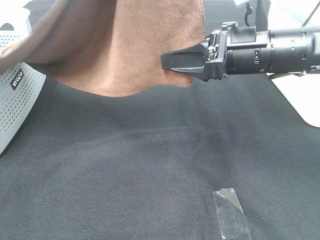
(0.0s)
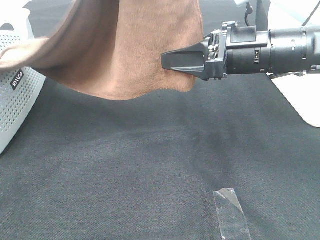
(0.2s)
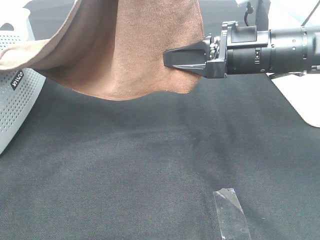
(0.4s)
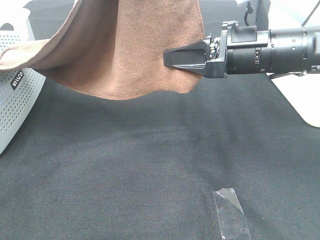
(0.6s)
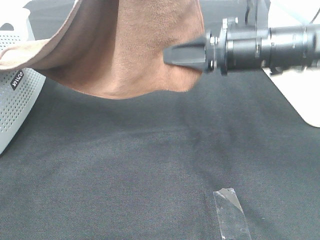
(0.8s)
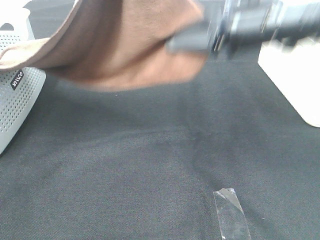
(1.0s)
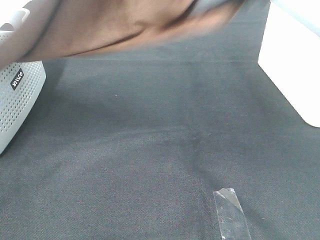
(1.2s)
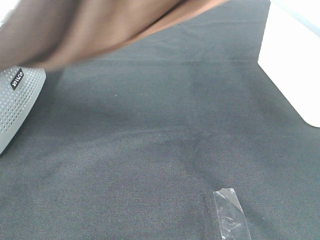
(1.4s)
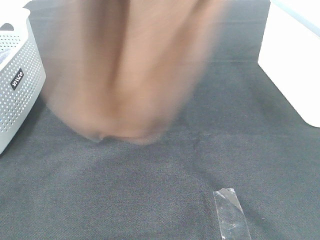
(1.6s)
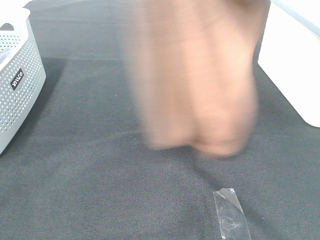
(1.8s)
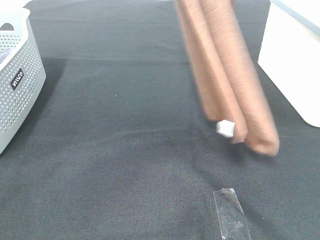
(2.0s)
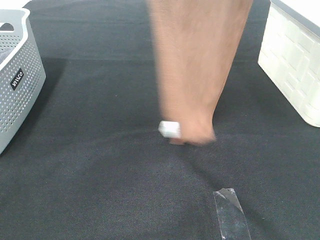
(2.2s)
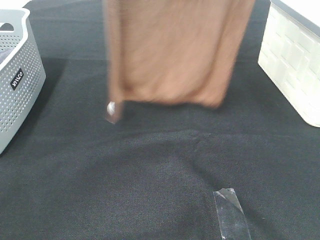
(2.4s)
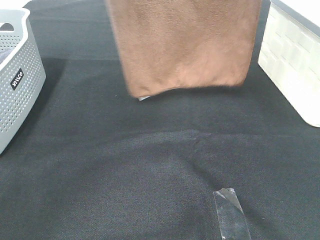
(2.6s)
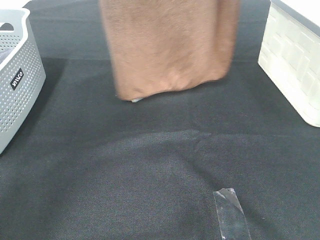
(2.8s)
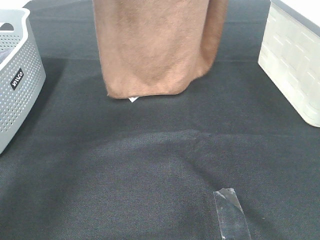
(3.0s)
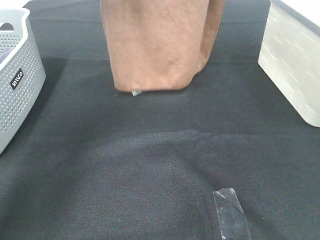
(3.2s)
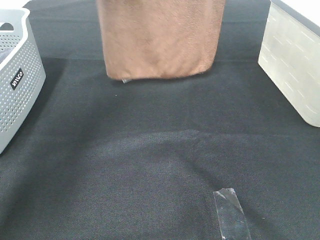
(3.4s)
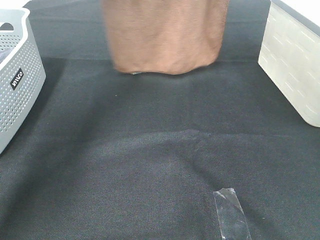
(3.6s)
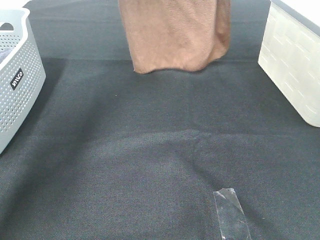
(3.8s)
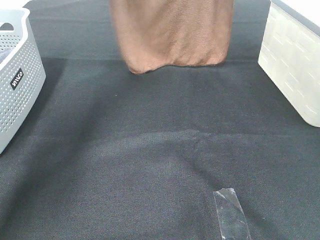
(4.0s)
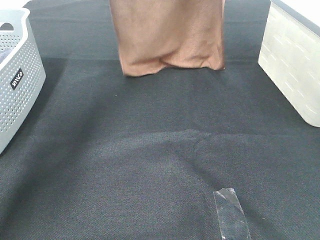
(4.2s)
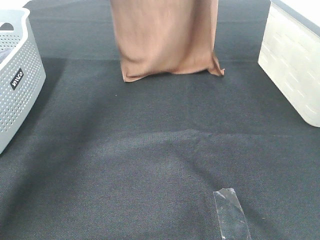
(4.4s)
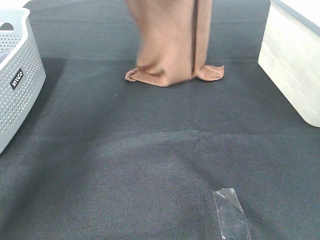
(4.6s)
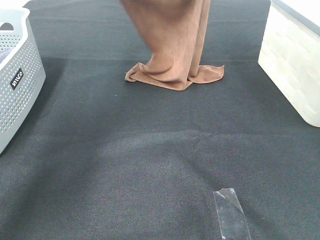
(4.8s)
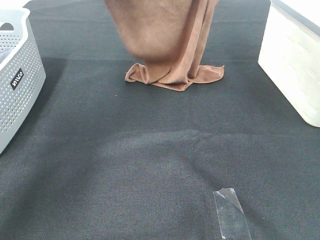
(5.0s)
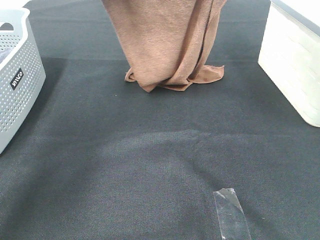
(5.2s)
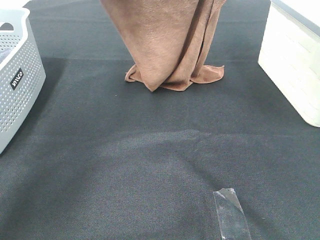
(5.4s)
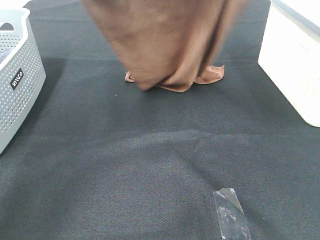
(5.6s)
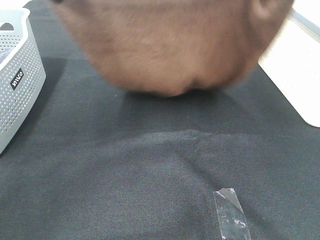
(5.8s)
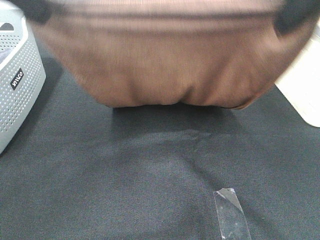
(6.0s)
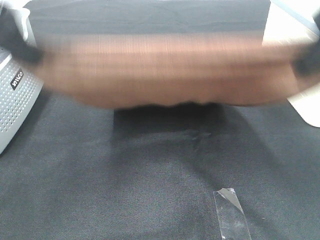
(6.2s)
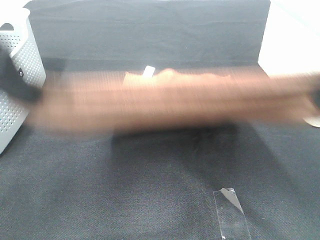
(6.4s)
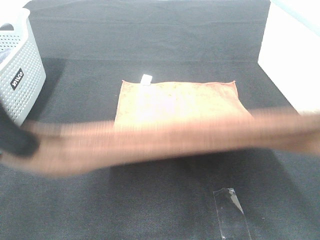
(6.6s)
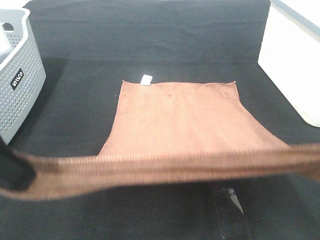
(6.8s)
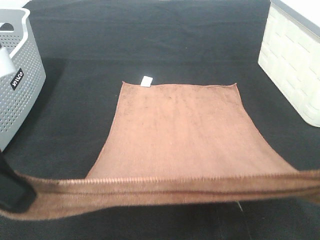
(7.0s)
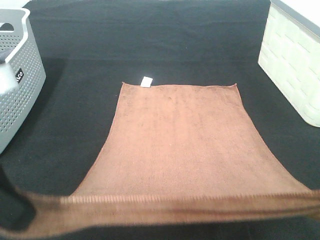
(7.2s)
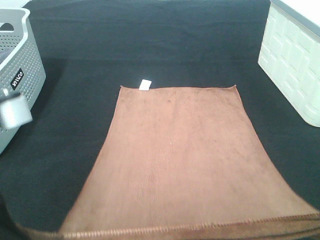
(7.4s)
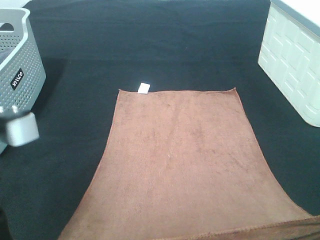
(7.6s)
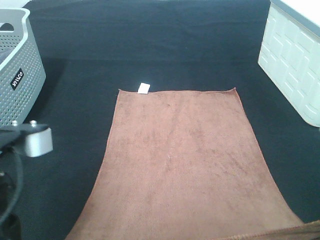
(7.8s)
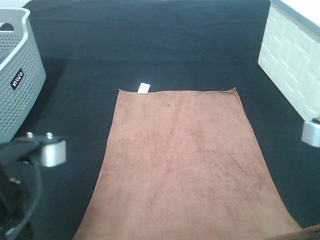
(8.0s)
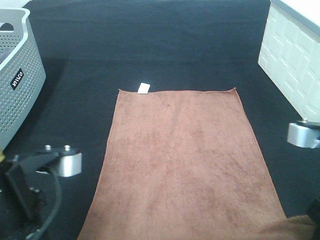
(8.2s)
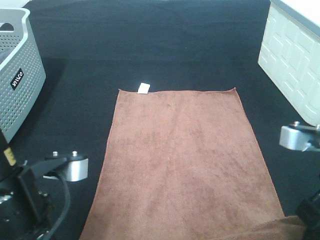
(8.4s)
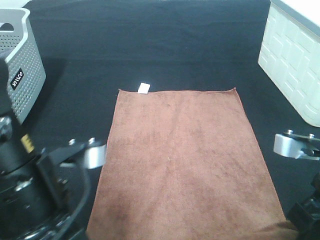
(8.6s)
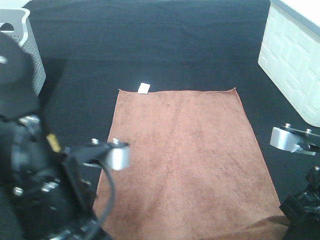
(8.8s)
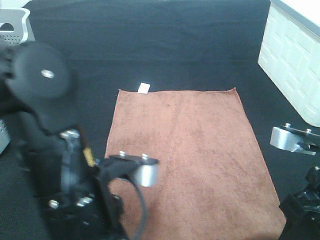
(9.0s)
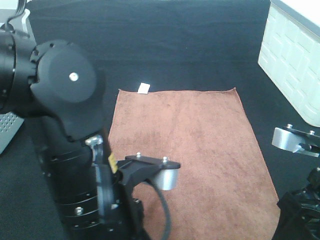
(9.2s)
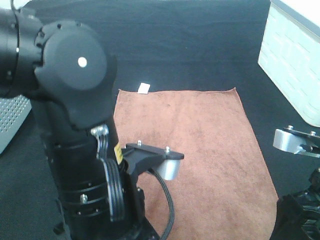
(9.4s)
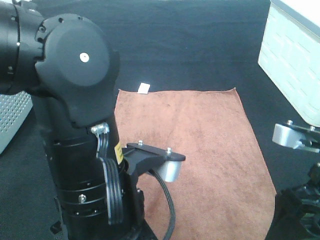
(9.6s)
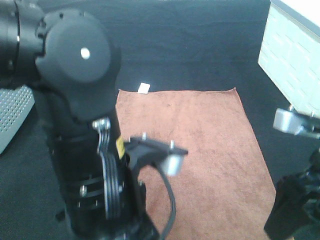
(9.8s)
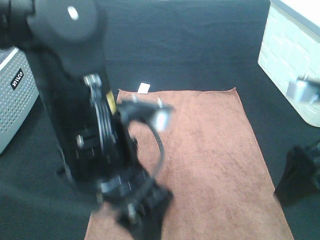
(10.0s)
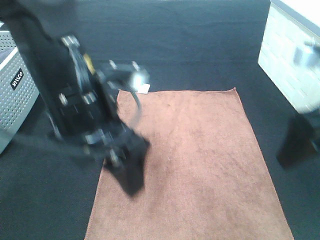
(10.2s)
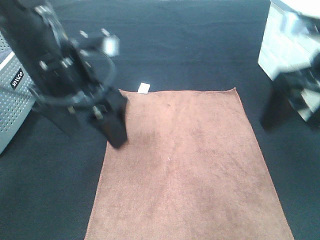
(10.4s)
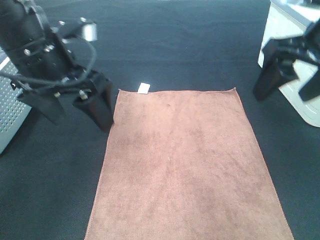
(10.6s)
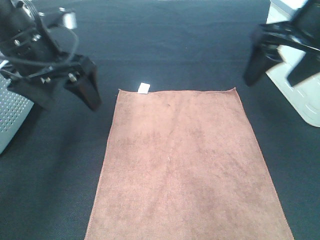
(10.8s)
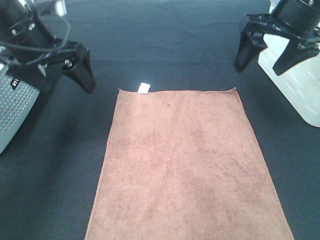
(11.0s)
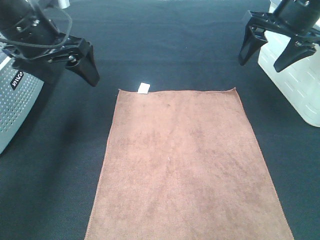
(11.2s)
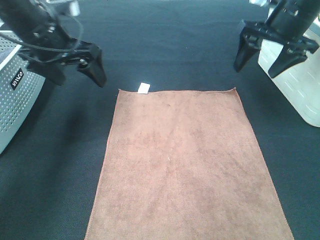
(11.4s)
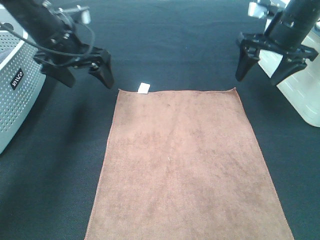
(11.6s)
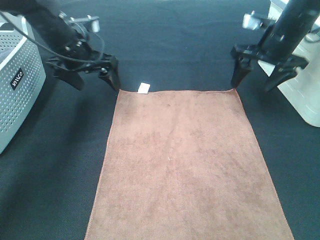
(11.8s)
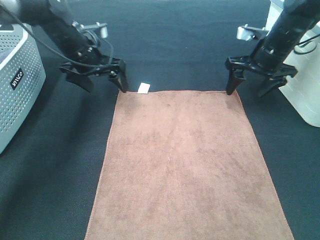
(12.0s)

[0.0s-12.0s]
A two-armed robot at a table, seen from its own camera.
Task of the whole recording: Remove the towel and place it.
Step, 0.4s to 5.0s: Right hand: spread the brown towel flat on the table.
Step, 0.4s to 5.2s: Left hand: spread the brown towel flat on the table.
0.0s to 1.6s: The right gripper goes some 30 cm upward, and closes up.
1.6s to 3.0s: The grippers both shift forward by about 15 cm.
3.0s to 4.4s: The right gripper ends up approximately 5 cm from where it was; the left gripper goes roughly 10 cm forward and downward.
4.4s to 6.0s: Both grippers move backward, roughly 25 cm.
6.0s to 7.6s: Both grippers travel together backward and downward, approximately 20 cm.
7.6s to 9.0s: The left gripper shifts approximately 10 cm to the right and downward, while the right gripper heads downward and forward, covering approximately 10 cm, and opens up.
9.0s to 10.4s: The left gripper goes roughly 15 cm forward, upward and to the left, and opens its fingers, while the right gripper goes about 15 cm forward and upward, and opens its fingers.
10.4s to 12.0s: Both grippers travel together forward and downward, approximately 25 cm.

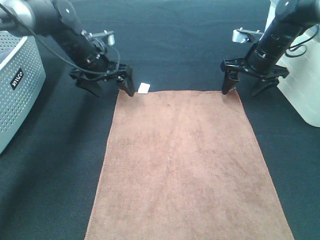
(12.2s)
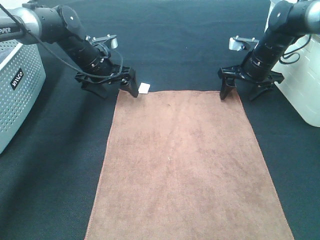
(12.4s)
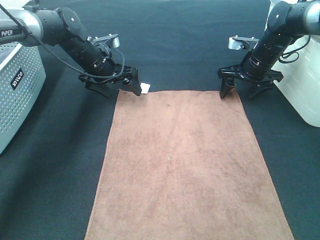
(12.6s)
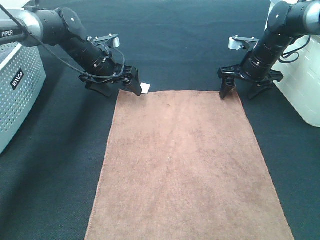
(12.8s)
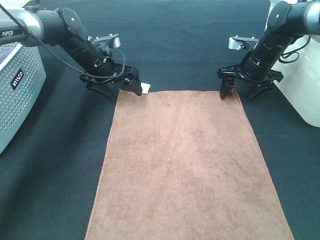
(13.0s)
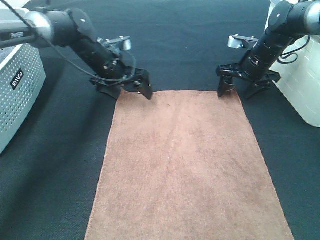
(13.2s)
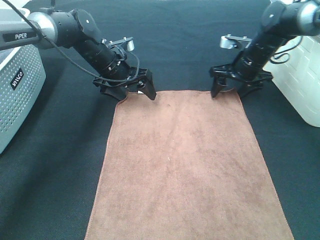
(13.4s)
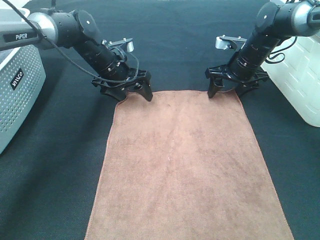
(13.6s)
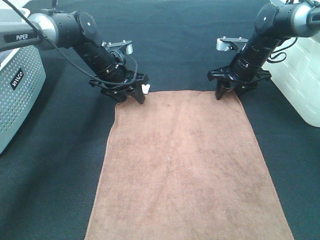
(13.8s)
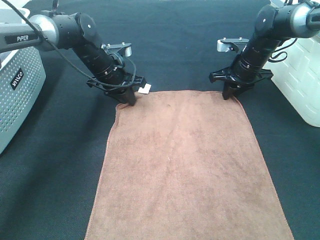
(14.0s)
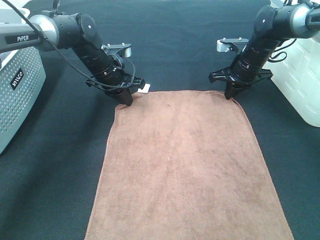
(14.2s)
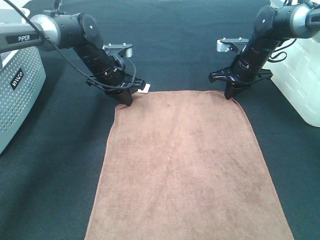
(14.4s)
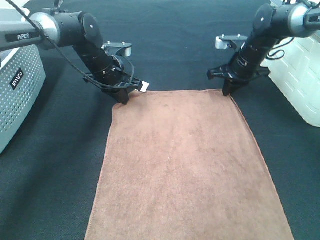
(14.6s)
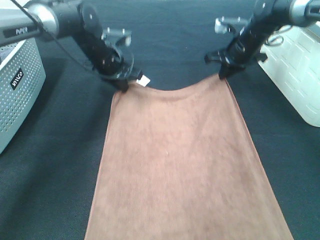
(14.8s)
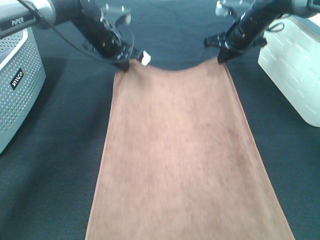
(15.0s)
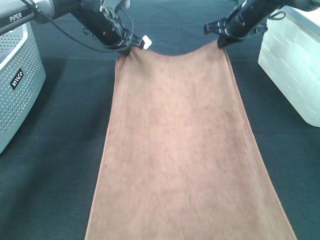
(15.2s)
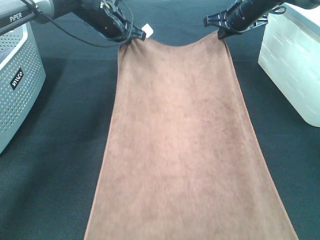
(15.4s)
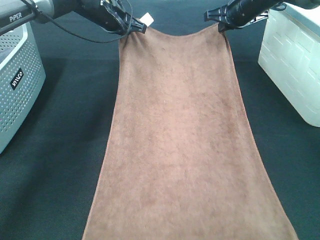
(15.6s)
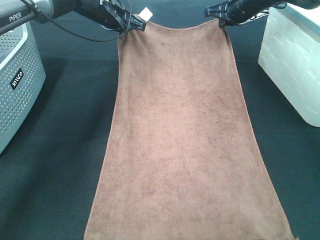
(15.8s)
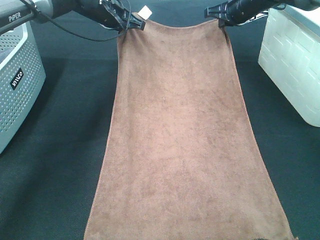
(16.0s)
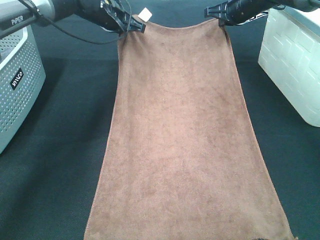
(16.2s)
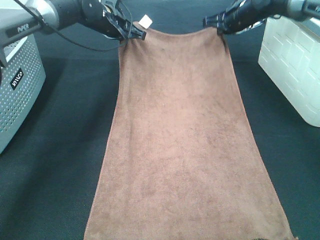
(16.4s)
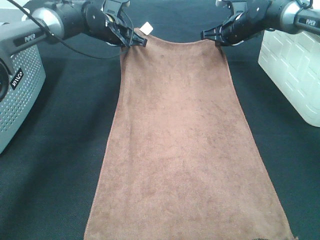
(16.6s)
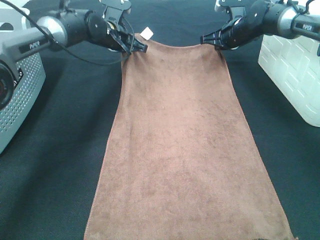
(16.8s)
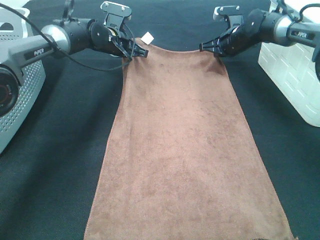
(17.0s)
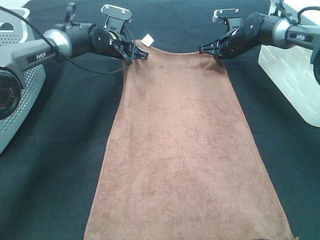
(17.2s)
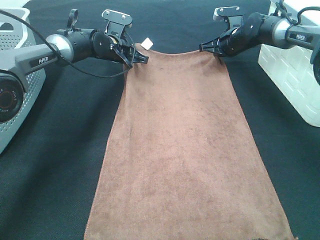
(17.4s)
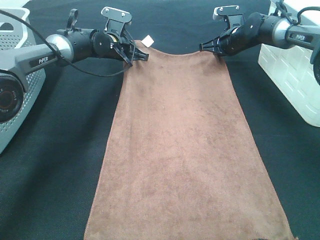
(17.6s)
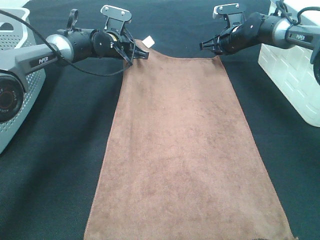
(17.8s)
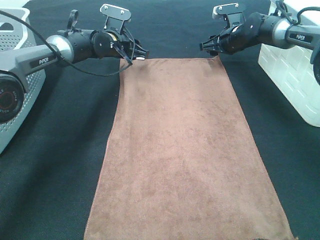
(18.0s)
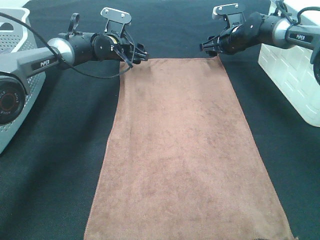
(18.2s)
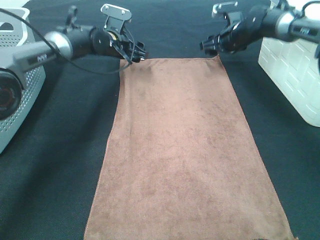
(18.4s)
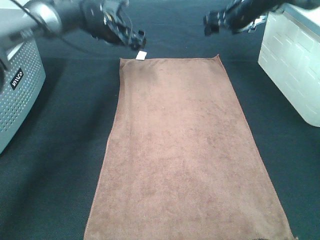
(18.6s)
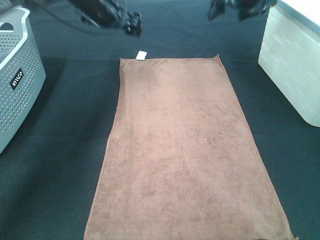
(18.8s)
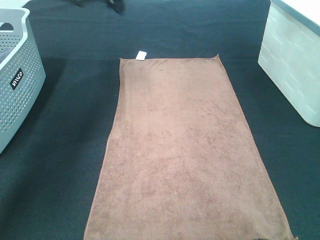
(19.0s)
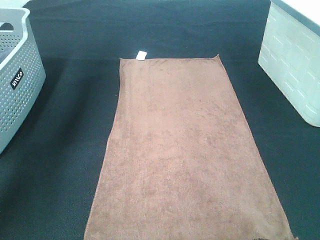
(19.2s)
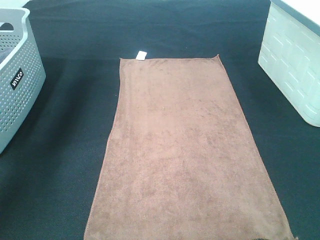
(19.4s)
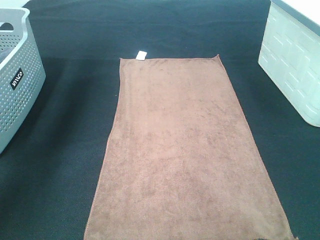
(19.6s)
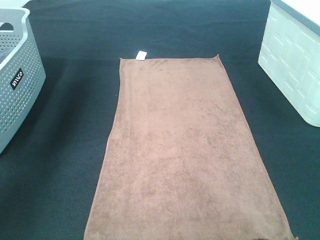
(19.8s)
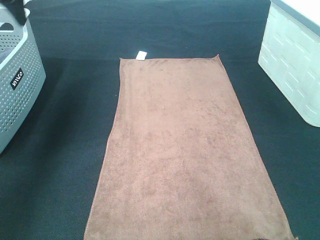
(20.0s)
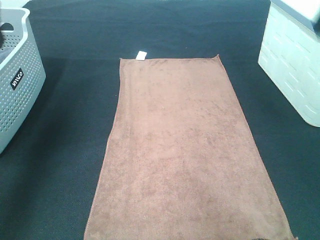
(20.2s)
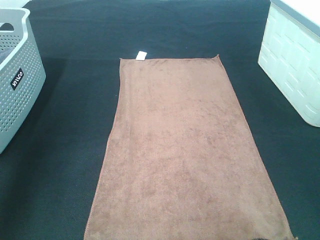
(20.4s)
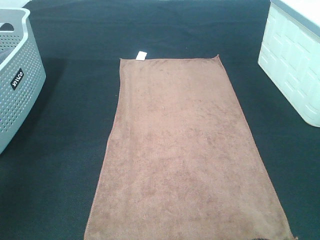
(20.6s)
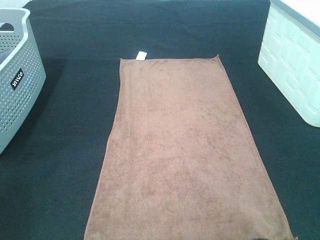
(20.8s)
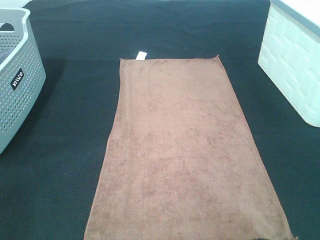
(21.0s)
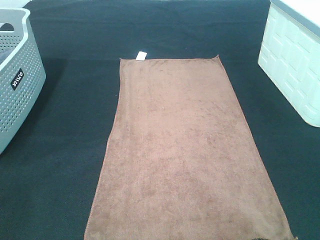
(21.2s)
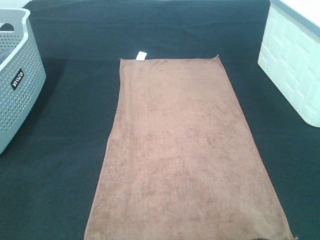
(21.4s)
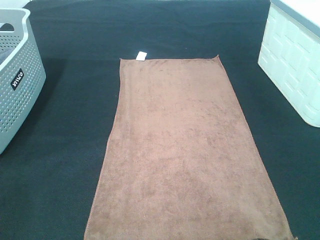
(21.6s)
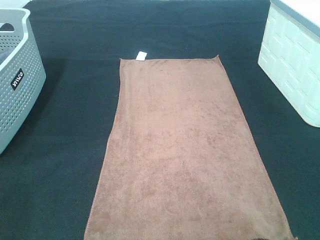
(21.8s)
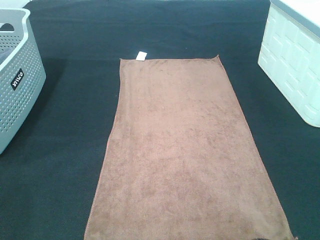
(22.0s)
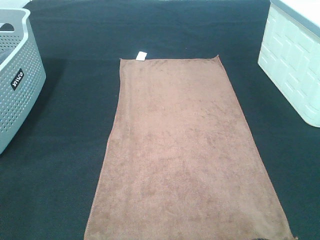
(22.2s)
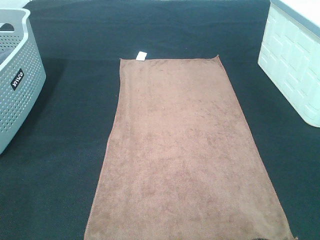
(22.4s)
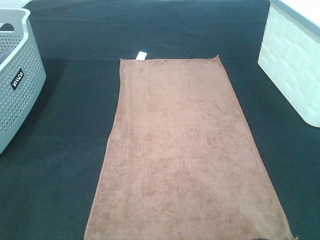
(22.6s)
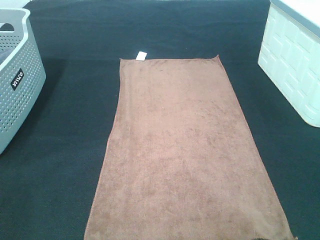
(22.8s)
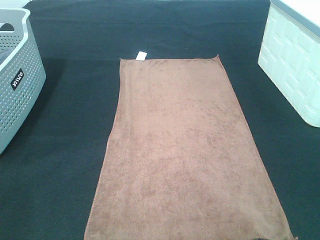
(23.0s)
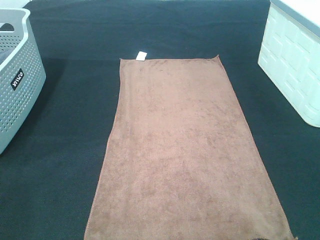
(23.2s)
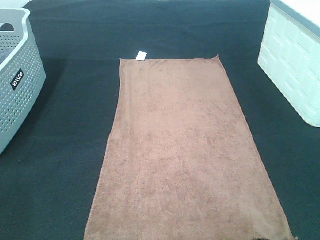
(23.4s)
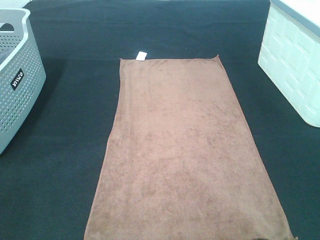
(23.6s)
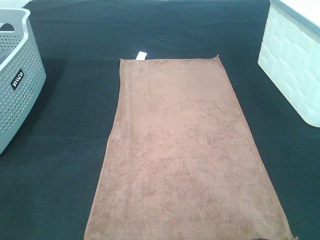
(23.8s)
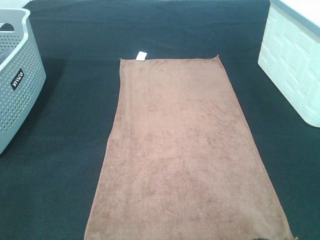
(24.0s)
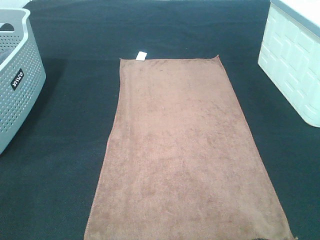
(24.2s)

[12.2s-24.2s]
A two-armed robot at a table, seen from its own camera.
Task of the whole recording: Remove the towel and place it.
12.2s to 13.8s: The left gripper closes, while the right gripper closes its fingers.
13.8s to 15.2s: The left gripper shifts roughly 10 cm upward, and closes up, while the right gripper shifts approximately 10 cm upward and forward, and closes.
15.2s to 16.6s: The right gripper changes place by about 5 cm.
16.6s to 18.2s: The right gripper opens up. The left gripper shifts approximately 5 cm downward, and opens up.
18.2s to 19.8s: The left gripper travels upward, to the left and backward by some 35 cm; the right gripper goes some 40 cm upward and backward.
19.8s to 21.2s: The left gripper heads backward, covering some 40 cm.
22.6s to 24.2s: The two grippers keep their place.
